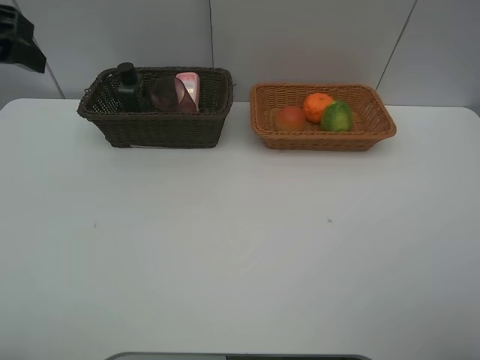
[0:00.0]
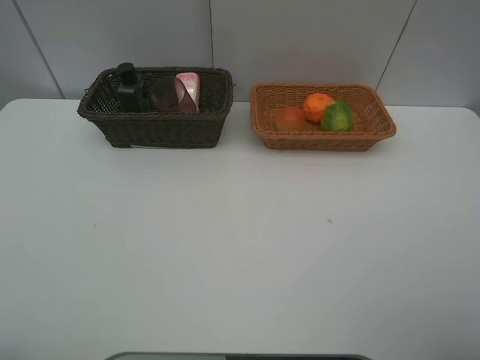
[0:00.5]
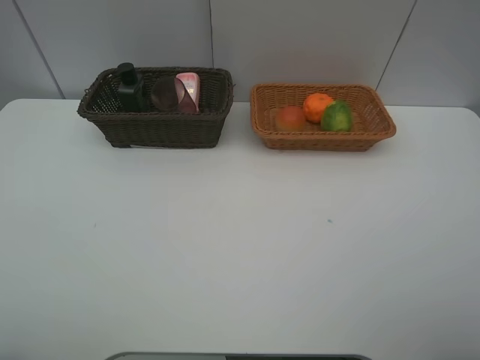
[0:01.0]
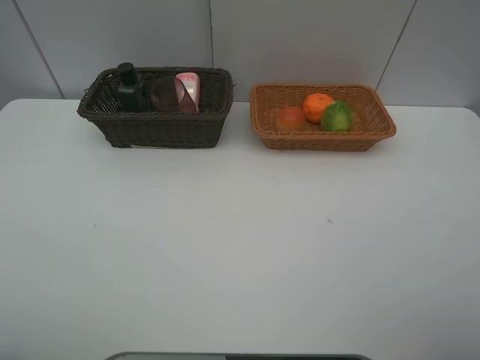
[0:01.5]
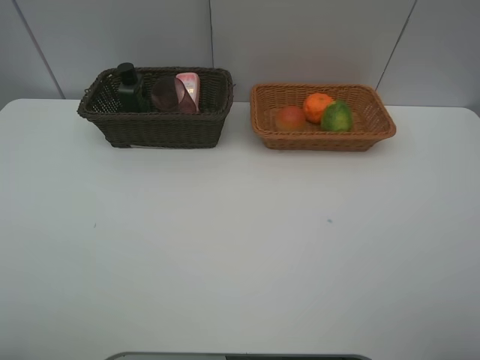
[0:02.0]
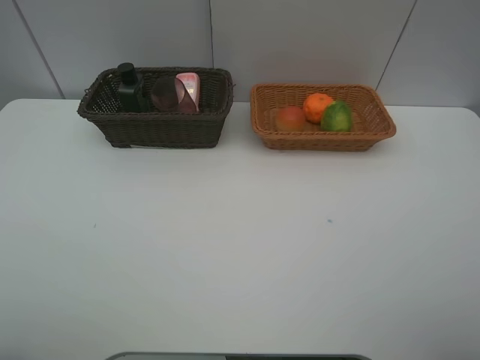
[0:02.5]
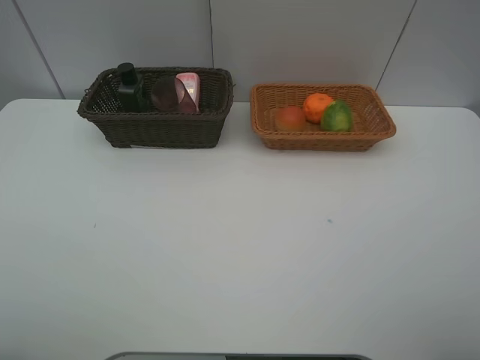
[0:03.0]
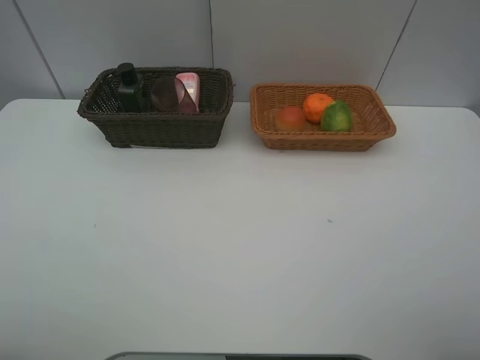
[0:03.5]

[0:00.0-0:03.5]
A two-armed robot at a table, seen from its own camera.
Task of the whole recording: place multiple objects separately in different baskets.
0:00.0 to 0:02.0: The left gripper goes about 25 cm backward.
0:02.0 to 0:03.5: The two grippers keep their place.
